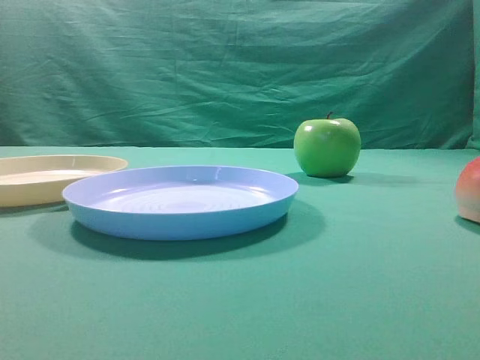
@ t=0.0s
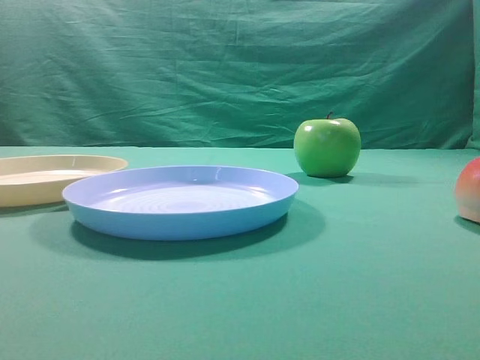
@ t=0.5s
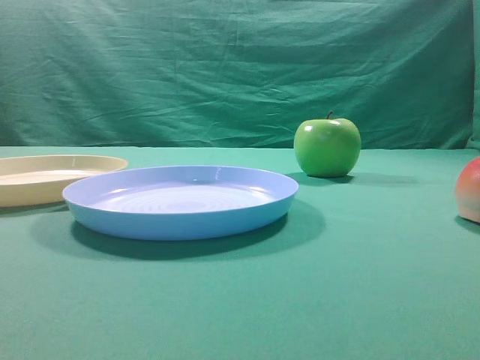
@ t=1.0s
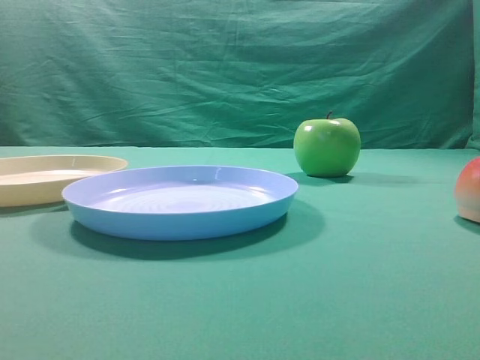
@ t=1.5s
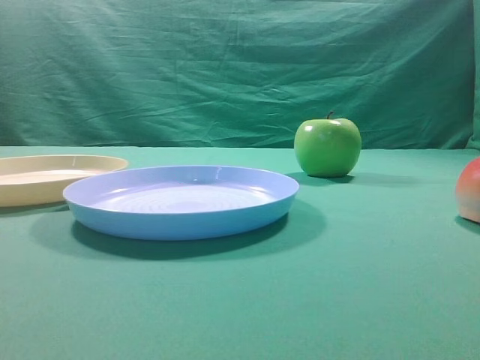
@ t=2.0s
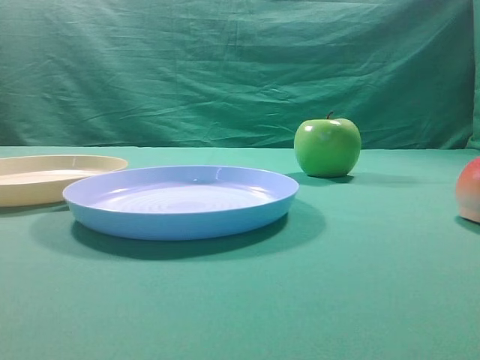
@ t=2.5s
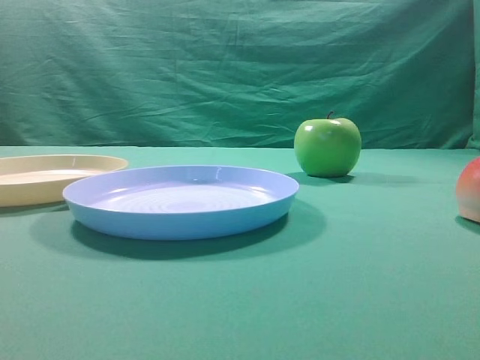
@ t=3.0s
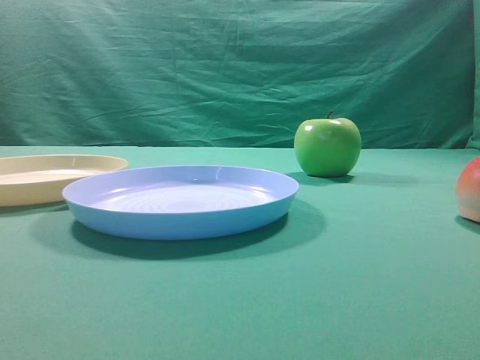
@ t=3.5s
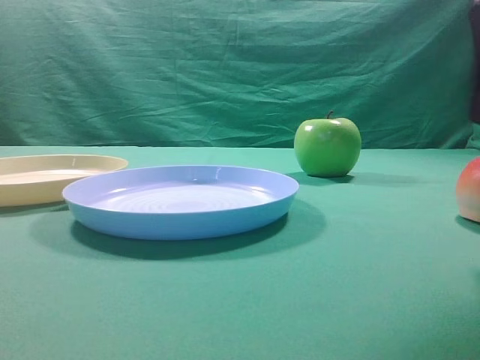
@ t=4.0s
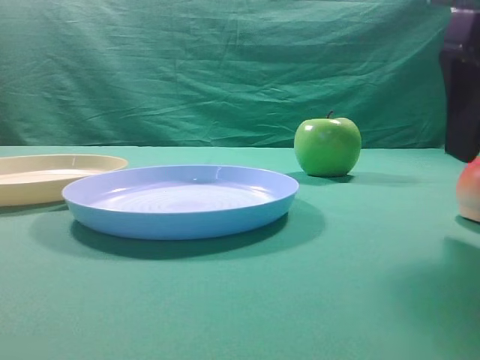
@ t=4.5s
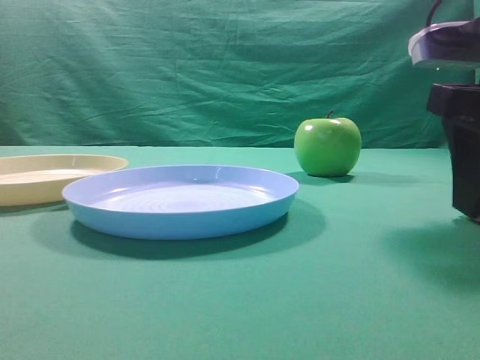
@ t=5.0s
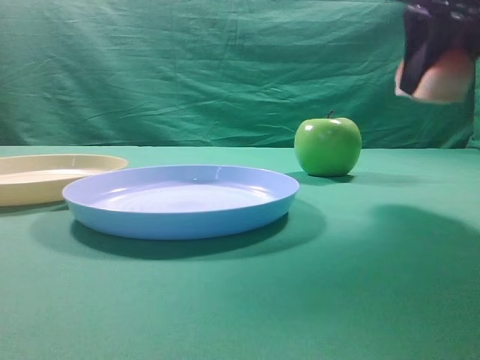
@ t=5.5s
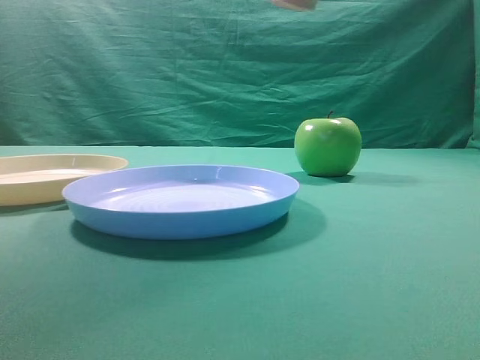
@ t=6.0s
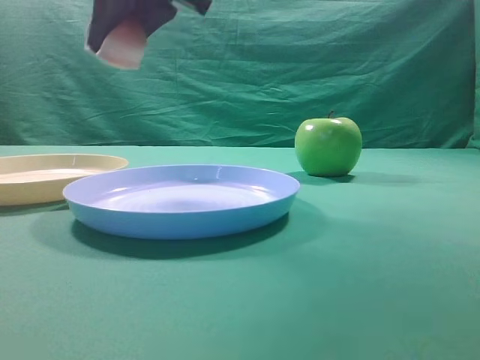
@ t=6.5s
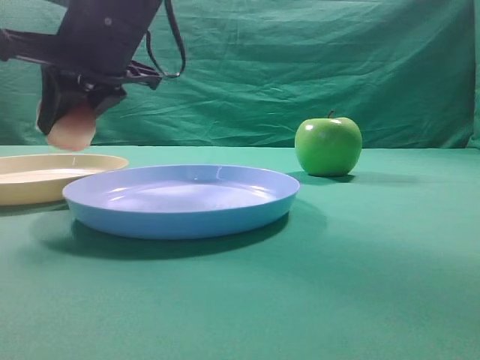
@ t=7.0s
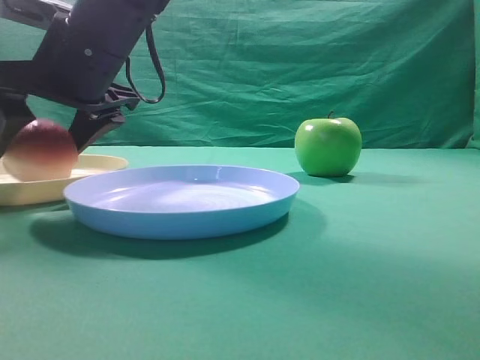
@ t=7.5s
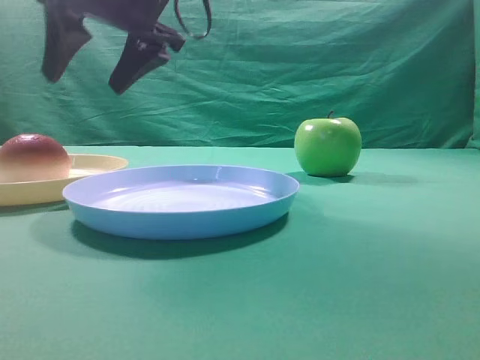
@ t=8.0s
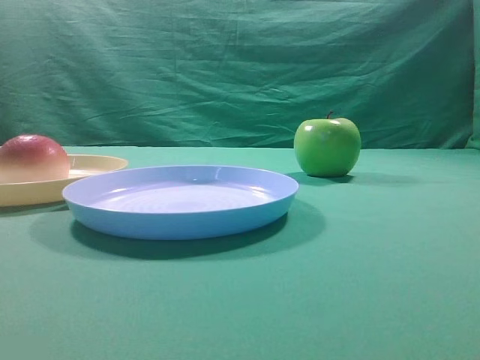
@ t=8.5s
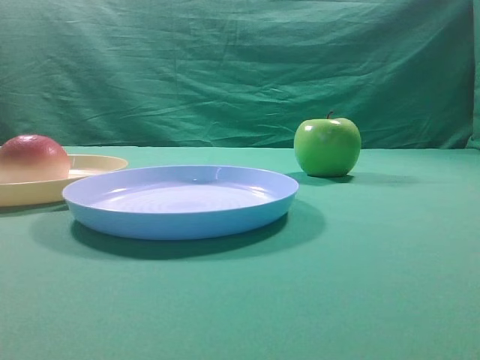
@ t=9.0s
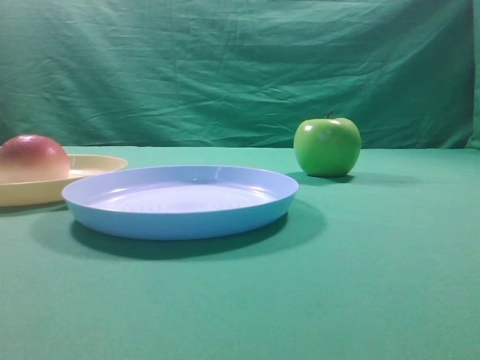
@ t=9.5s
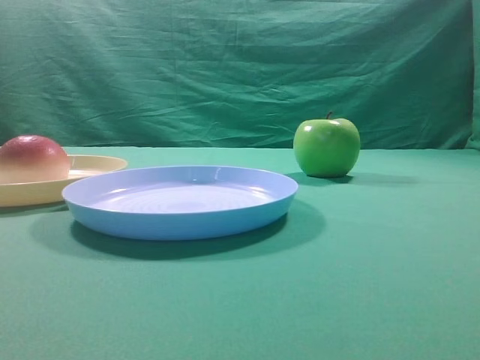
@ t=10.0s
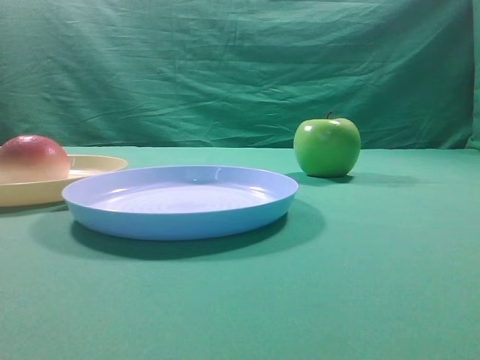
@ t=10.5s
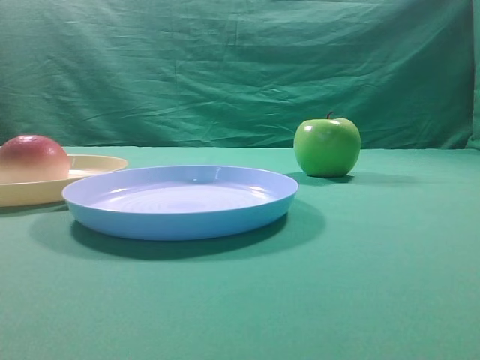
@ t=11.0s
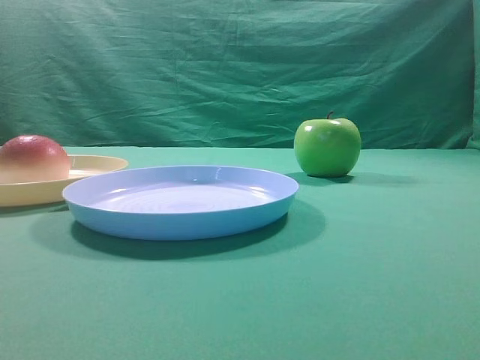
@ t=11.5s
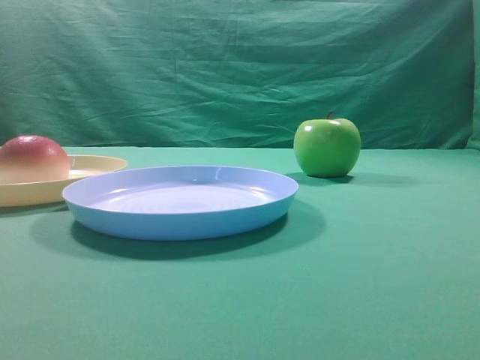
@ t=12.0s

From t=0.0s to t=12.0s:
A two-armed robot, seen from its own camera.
Step, from t=5.5s to t=7.5s: Place the picked object on the yellow plate.
